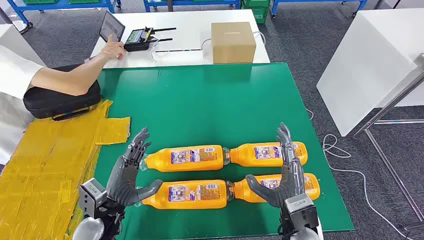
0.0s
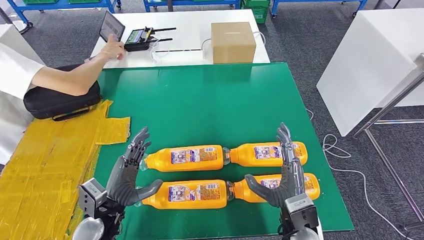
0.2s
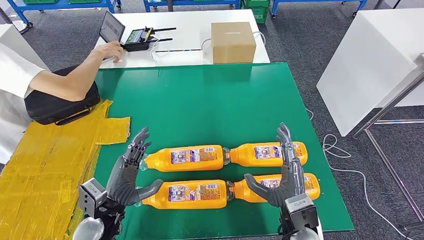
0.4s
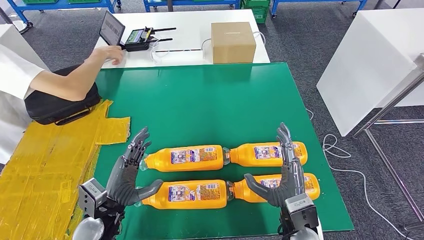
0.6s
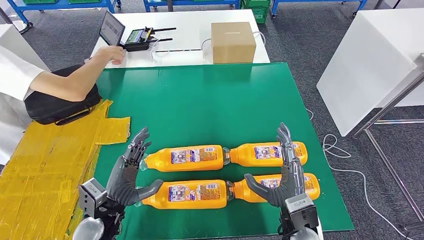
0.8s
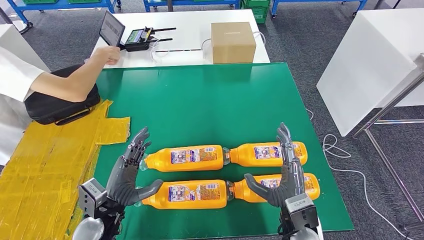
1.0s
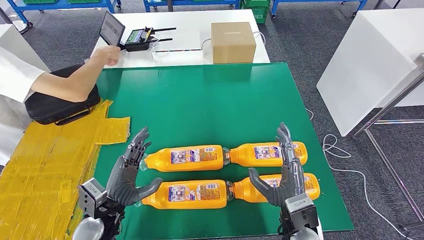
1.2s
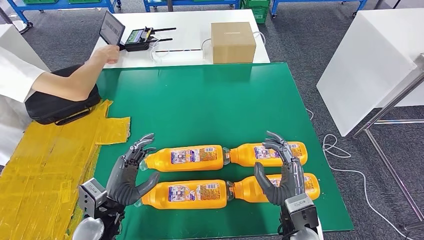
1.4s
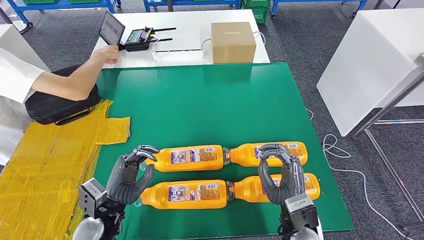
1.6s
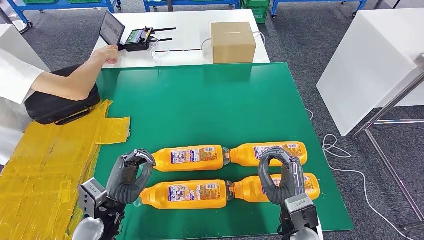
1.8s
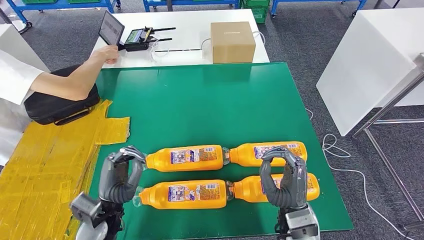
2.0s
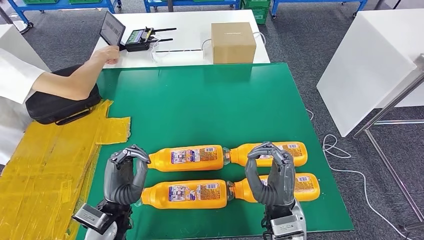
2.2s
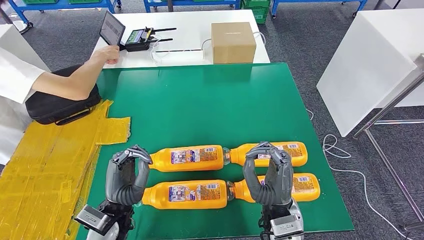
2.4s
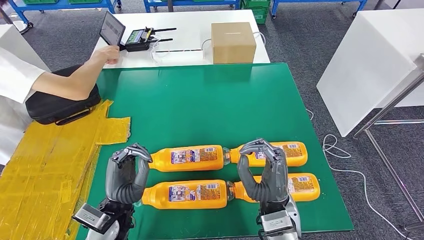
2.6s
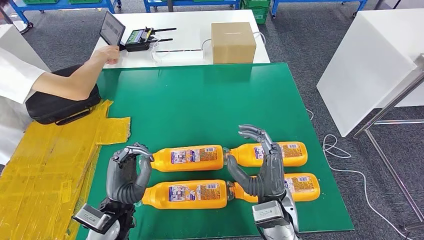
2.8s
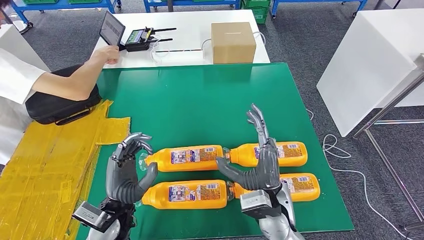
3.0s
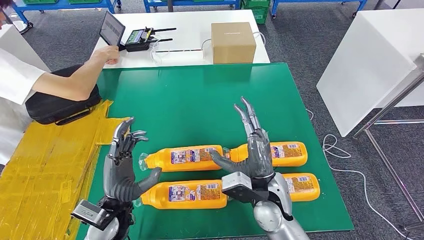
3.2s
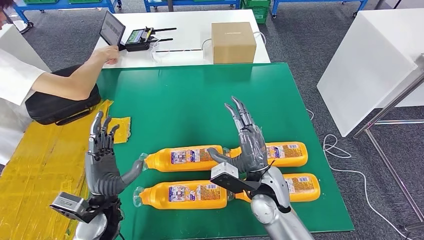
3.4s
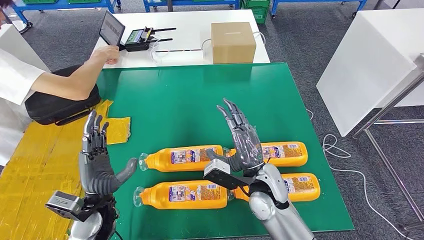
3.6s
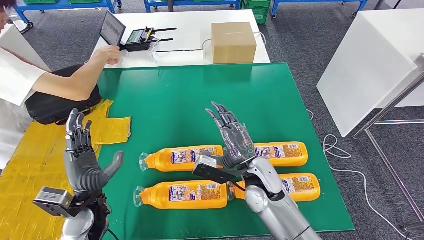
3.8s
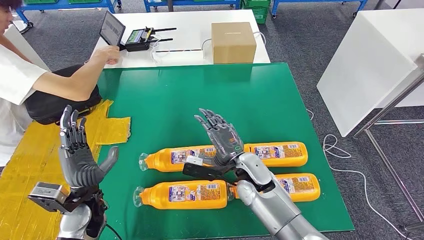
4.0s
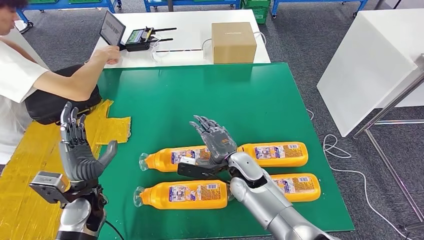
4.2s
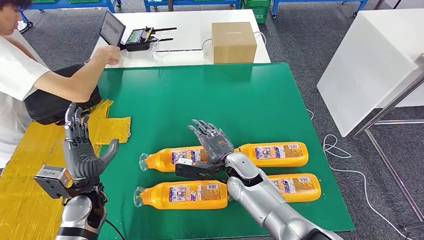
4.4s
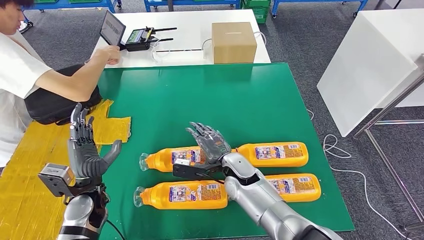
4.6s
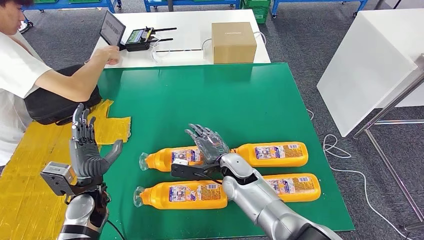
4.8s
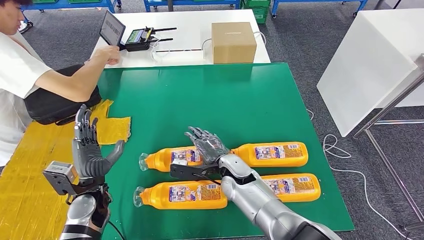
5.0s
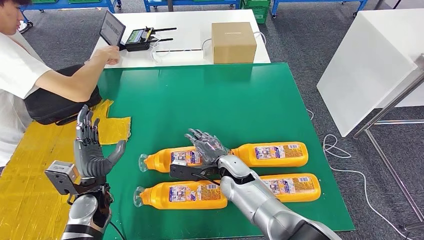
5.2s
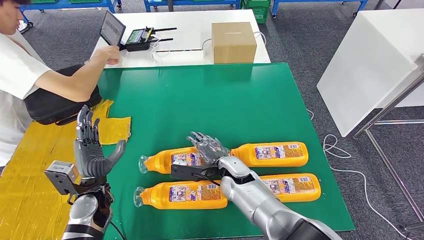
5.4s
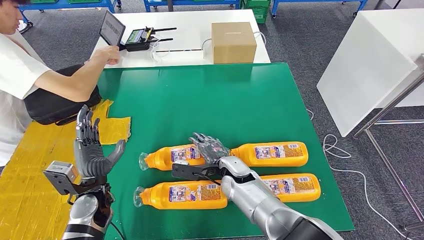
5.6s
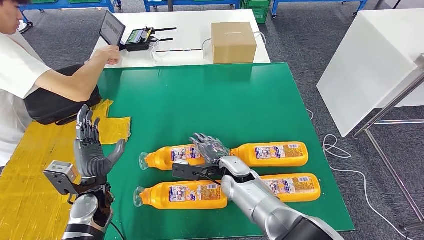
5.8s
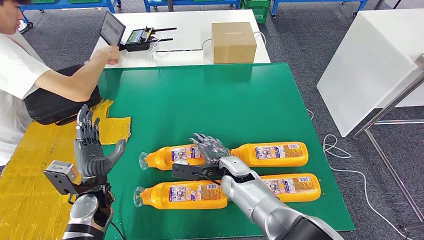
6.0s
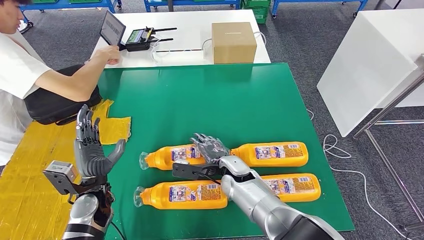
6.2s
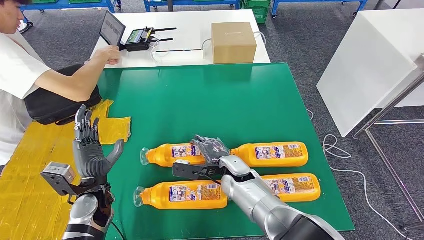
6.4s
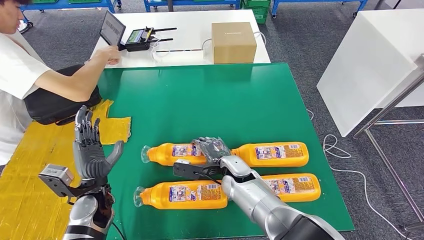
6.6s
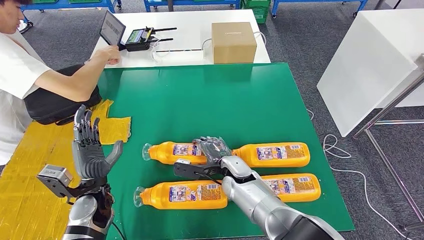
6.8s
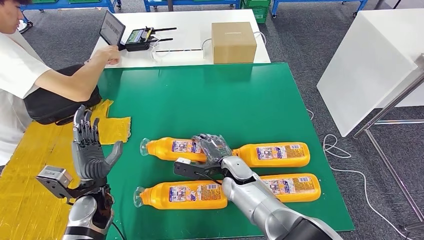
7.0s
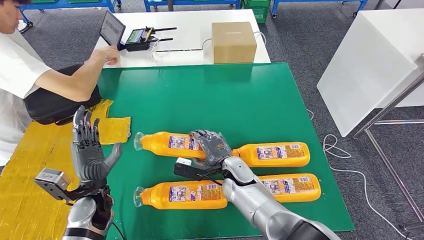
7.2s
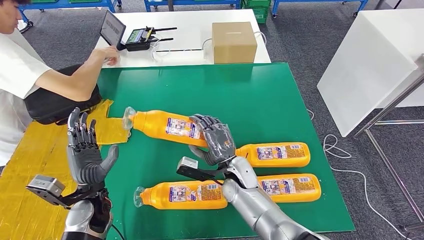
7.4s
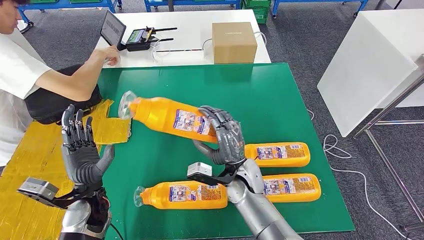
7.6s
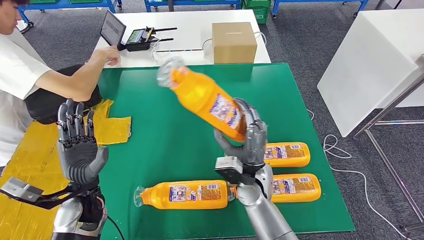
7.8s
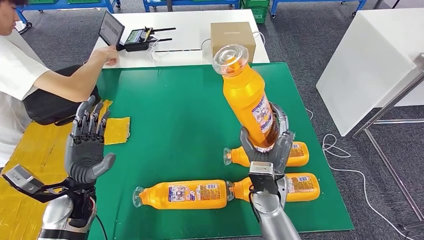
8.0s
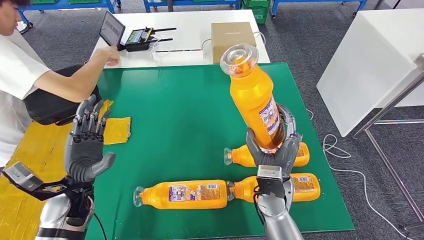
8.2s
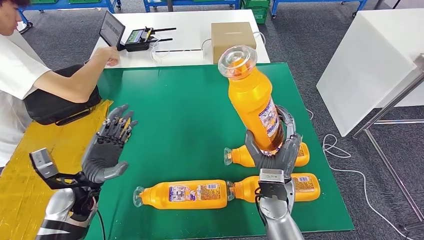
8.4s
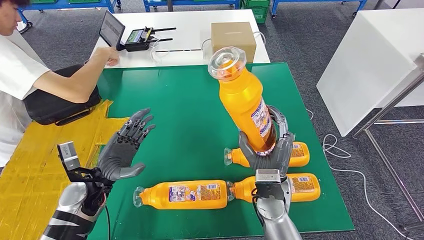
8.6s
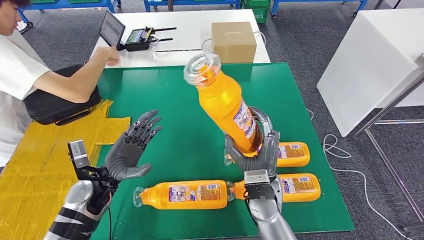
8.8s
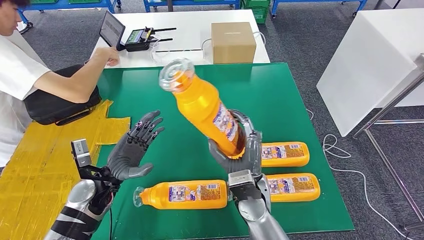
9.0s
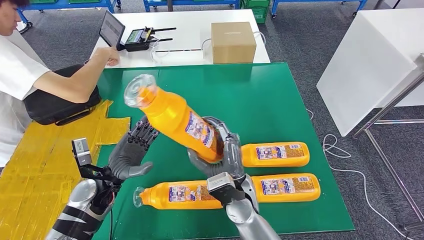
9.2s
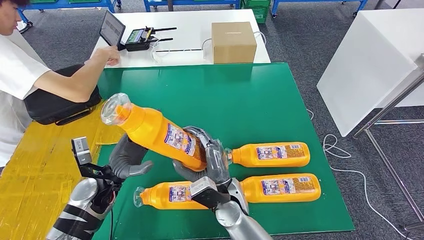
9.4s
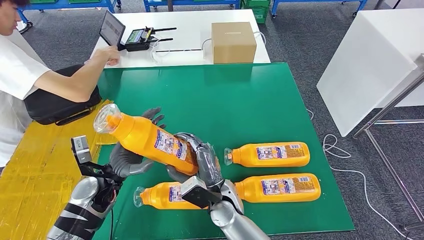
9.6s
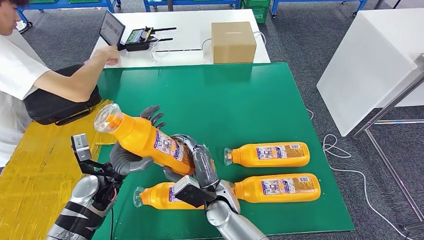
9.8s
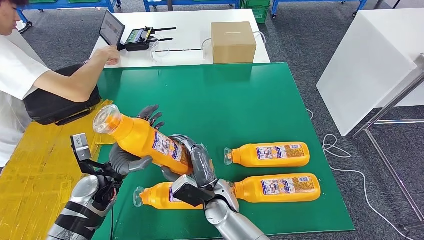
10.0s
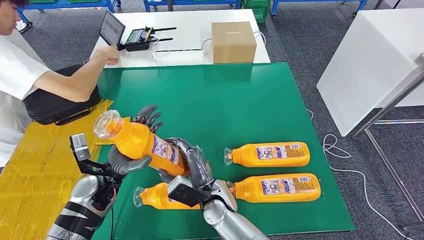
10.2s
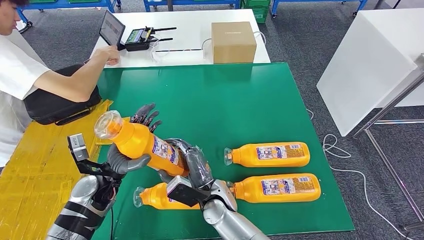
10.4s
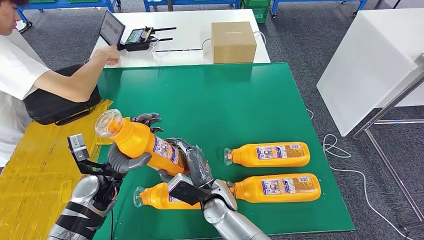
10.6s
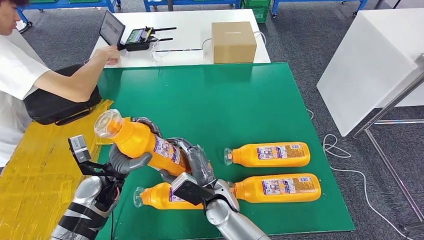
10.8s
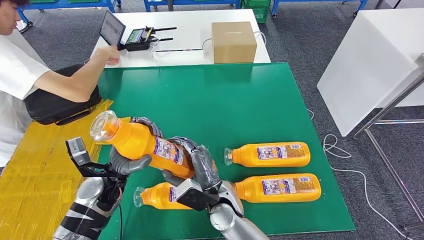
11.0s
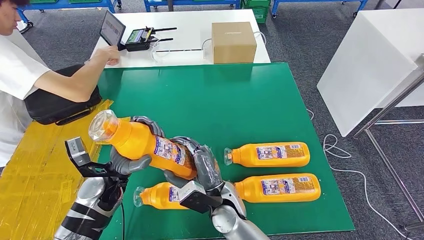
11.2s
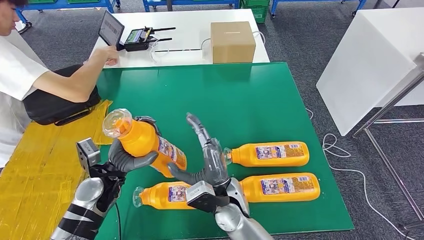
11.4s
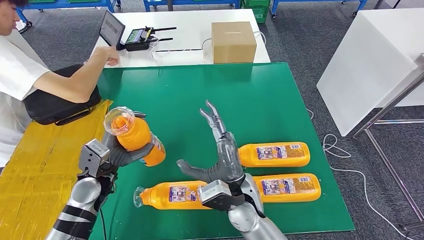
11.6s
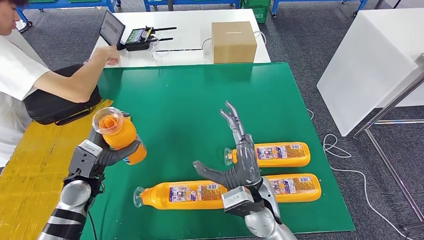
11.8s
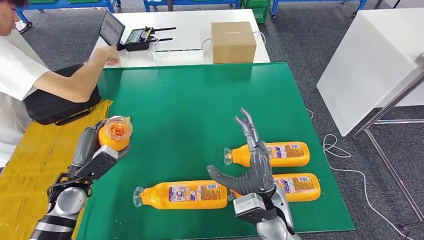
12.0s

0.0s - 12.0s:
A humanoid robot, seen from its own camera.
Step, 0.0s - 8.2s: Take the fast-moving consumer goods bottle from the table.
1.6s - 3.0s: The right hand travels to the left by approximately 5 cm.
3.0s - 4.4s: The left hand heads to the left, covering about 10 cm; the right hand moves forward, to the left and downward, some 15 cm.
4.4s - 6.0s: The hands stay close to where they were, moving slightly.
9.0s - 10.4s: The right hand heads to the left and downward, covering some 10 cm.
10.4s - 12.0s: The left hand is displaced to the left by roughly 10 cm. The right hand travels to the right and upward by some 15 cm.

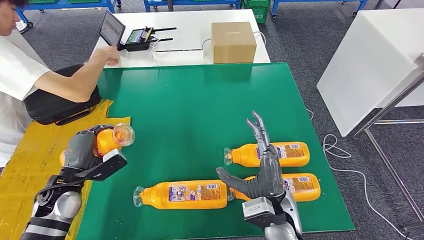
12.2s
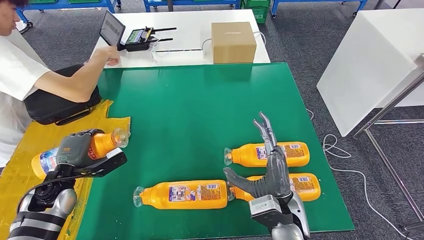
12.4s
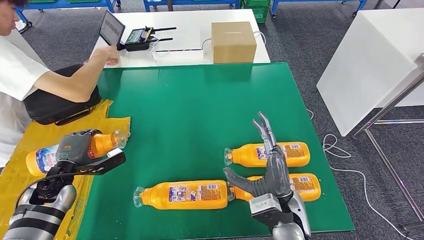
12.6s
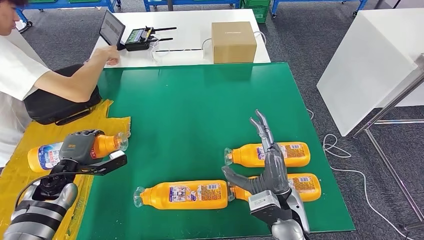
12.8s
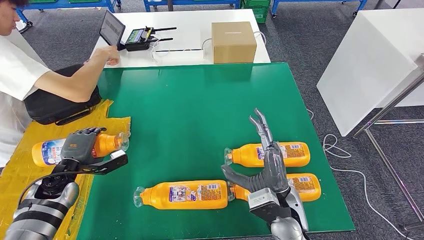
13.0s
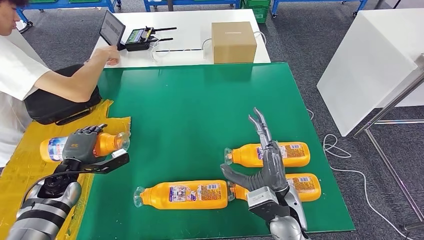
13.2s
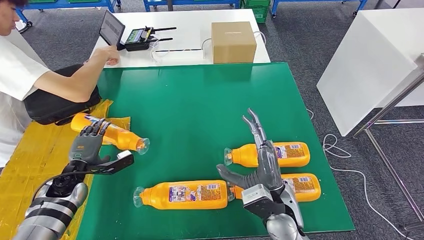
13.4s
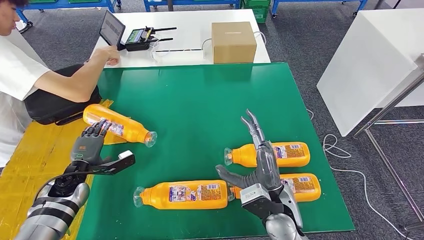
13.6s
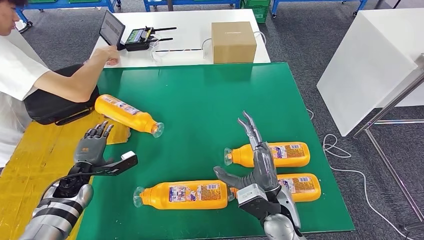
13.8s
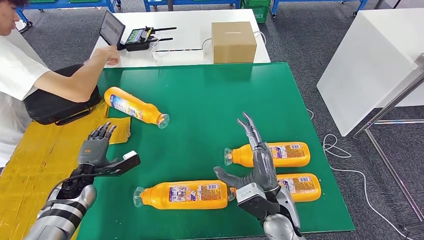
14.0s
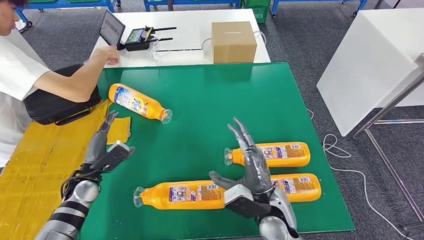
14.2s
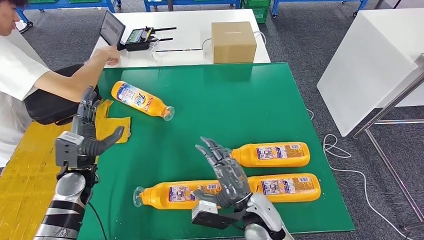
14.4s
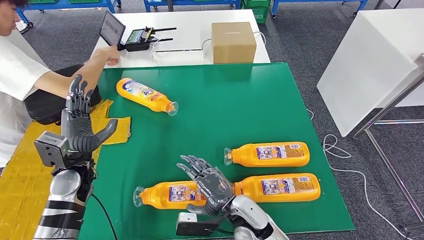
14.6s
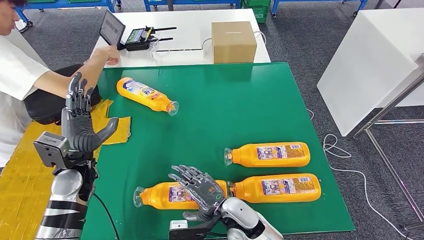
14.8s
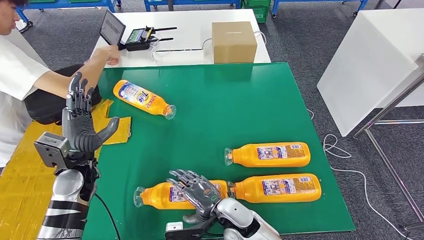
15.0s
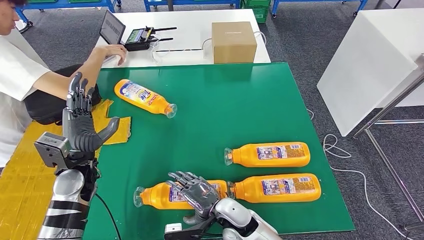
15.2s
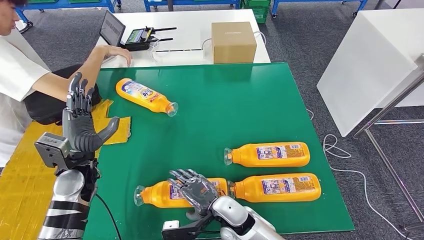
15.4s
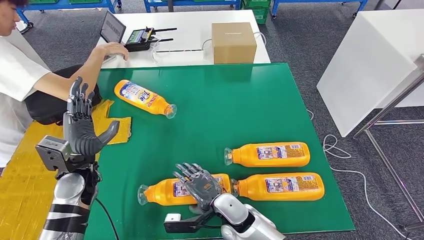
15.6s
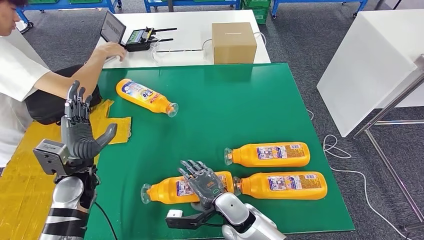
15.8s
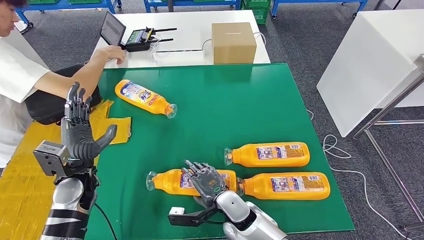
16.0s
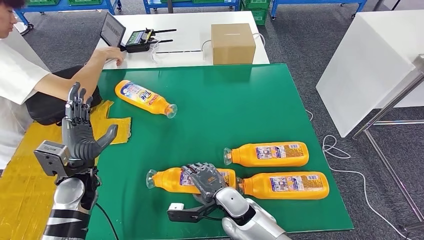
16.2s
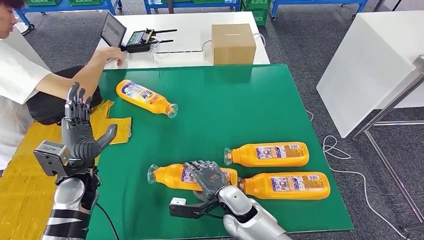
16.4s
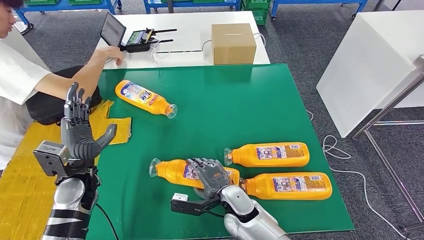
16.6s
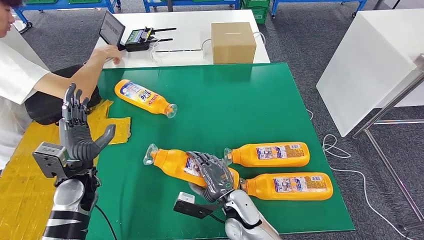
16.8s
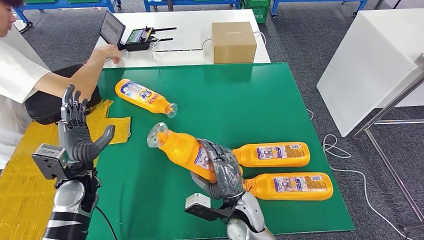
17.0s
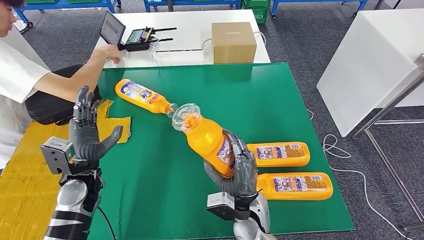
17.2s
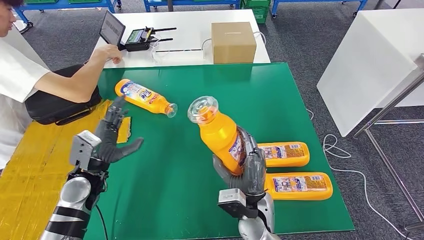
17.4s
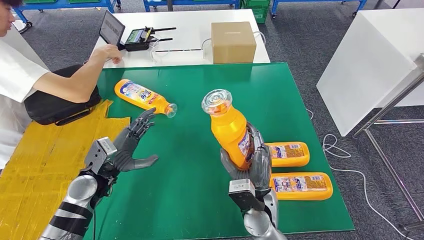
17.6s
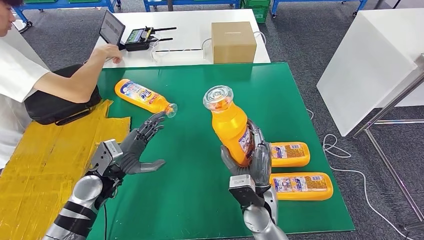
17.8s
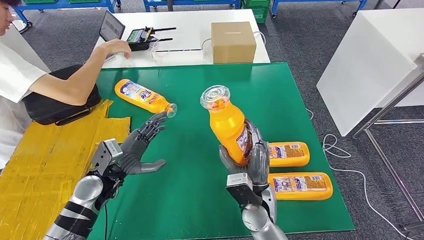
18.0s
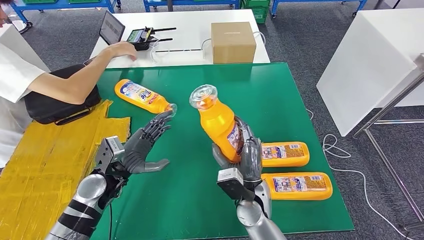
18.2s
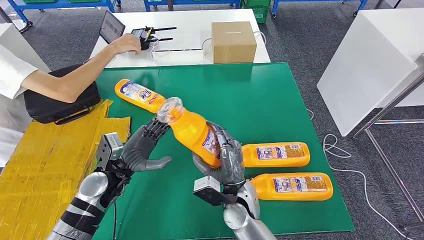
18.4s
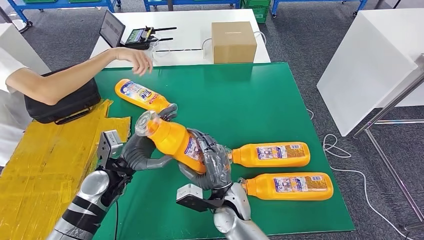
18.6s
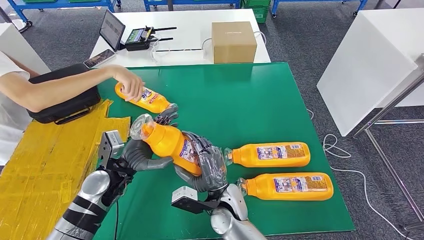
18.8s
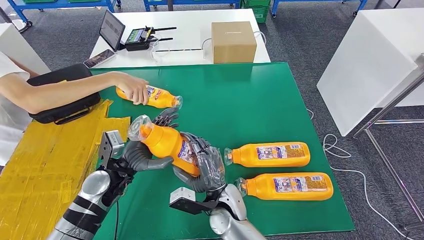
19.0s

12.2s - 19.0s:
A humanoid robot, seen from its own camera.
Step, 14.2s - 17.6s: Pick up the fast-moving consumer goods bottle from the table.
12.2s - 13.6s: The left hand moves downward, some 5 cm.
13.6s - 15.0s: The left hand is displaced upward and to the right by approximately 10 cm; the right hand is displaced to the left and downward by roughly 15 cm.
